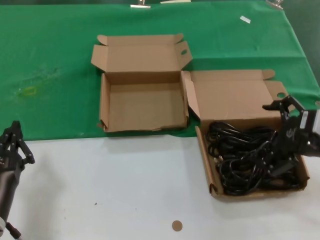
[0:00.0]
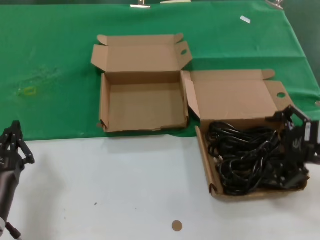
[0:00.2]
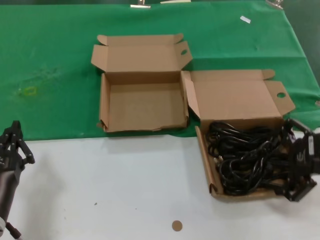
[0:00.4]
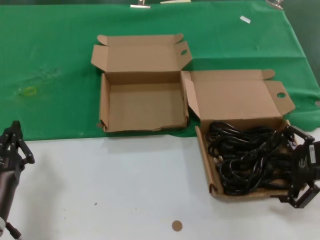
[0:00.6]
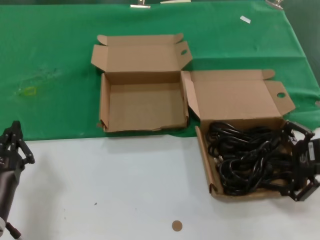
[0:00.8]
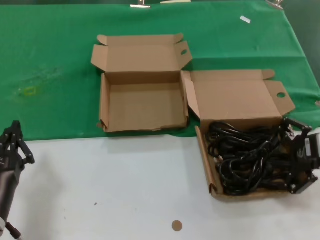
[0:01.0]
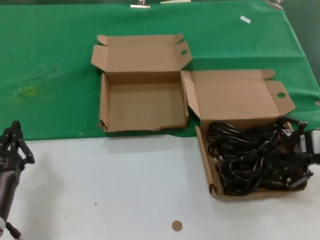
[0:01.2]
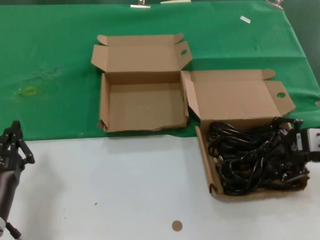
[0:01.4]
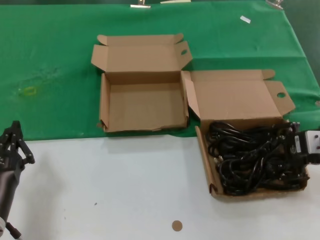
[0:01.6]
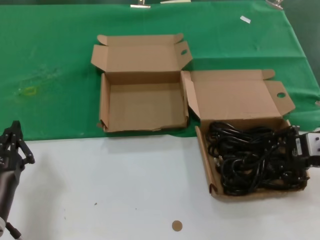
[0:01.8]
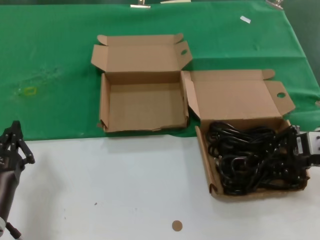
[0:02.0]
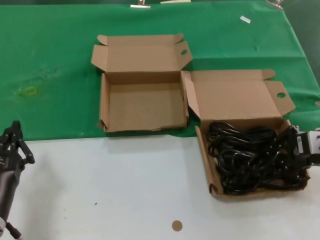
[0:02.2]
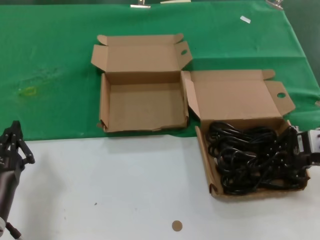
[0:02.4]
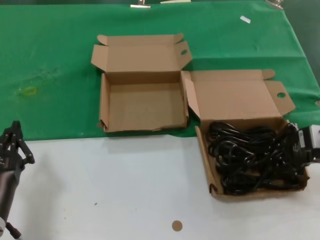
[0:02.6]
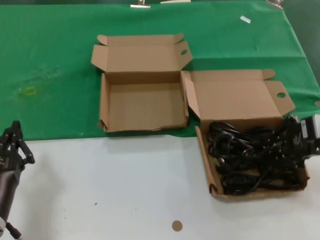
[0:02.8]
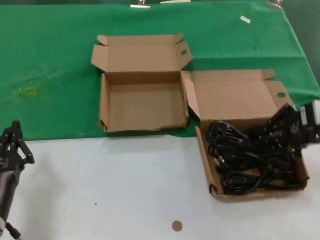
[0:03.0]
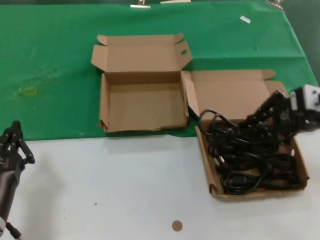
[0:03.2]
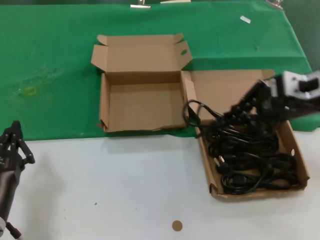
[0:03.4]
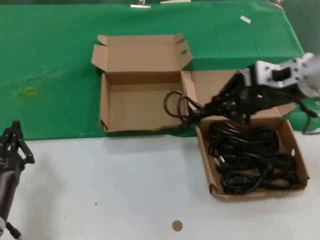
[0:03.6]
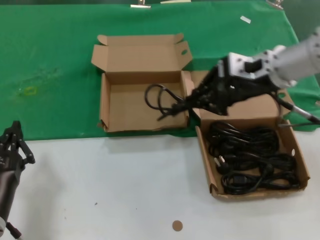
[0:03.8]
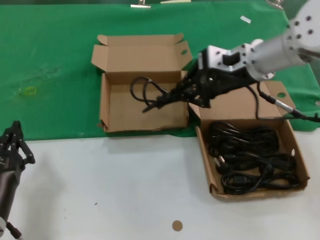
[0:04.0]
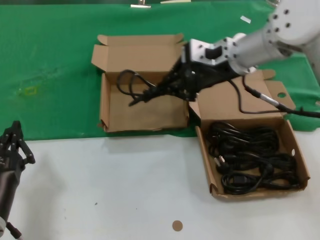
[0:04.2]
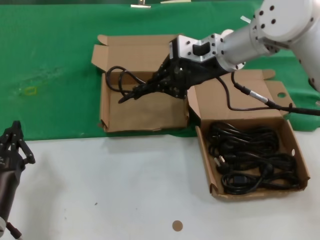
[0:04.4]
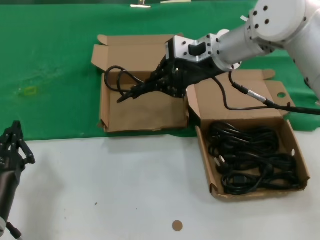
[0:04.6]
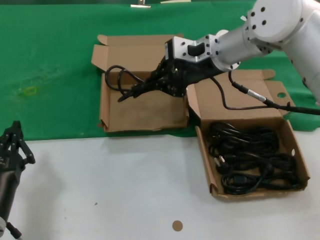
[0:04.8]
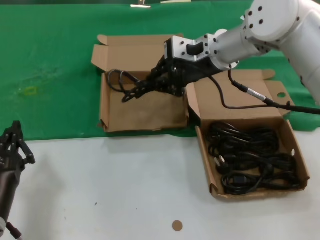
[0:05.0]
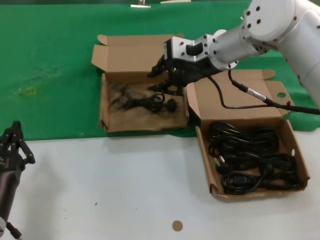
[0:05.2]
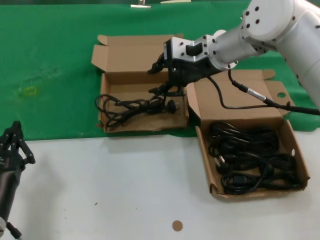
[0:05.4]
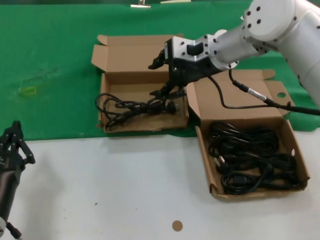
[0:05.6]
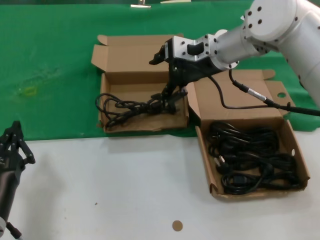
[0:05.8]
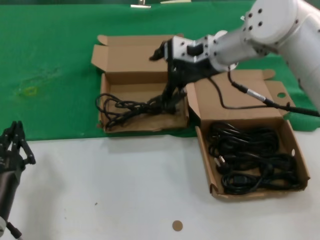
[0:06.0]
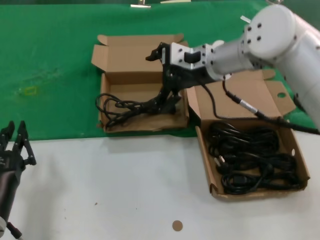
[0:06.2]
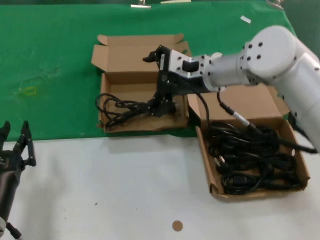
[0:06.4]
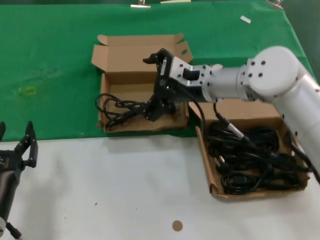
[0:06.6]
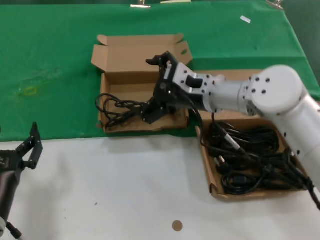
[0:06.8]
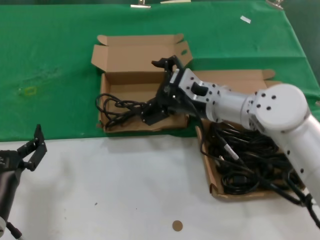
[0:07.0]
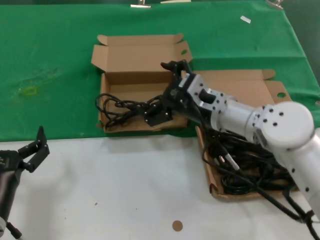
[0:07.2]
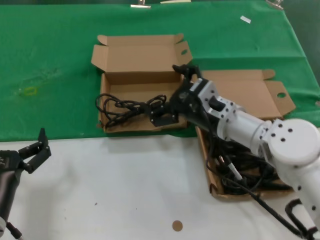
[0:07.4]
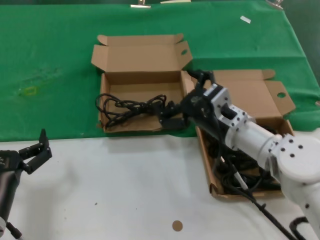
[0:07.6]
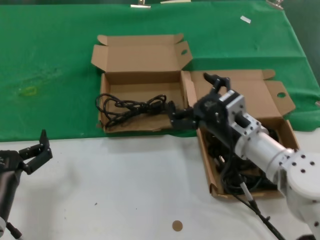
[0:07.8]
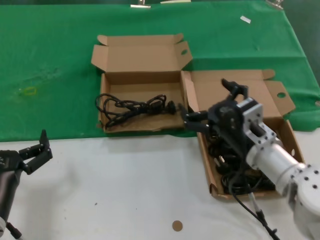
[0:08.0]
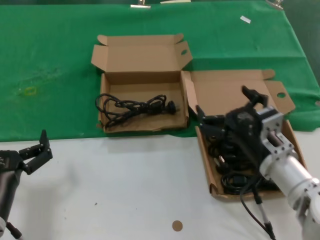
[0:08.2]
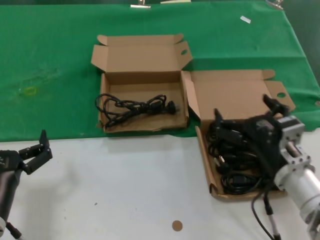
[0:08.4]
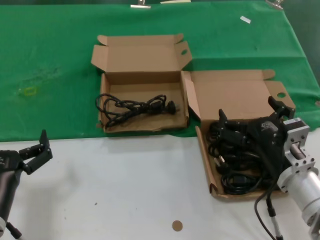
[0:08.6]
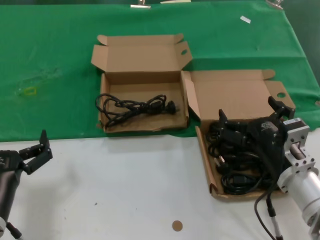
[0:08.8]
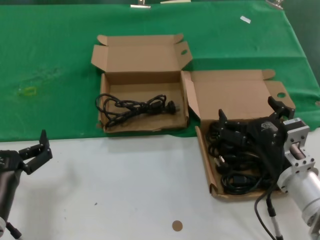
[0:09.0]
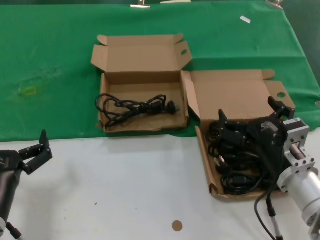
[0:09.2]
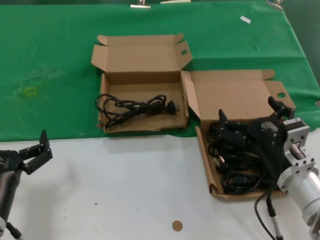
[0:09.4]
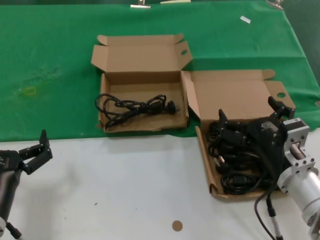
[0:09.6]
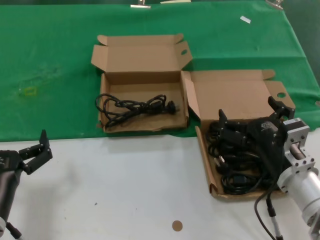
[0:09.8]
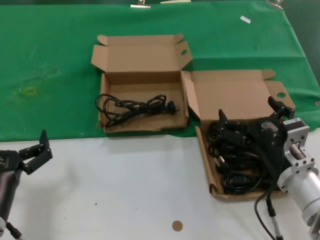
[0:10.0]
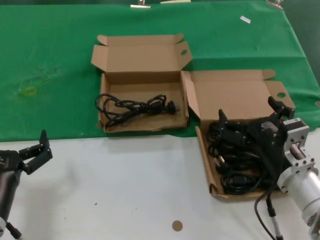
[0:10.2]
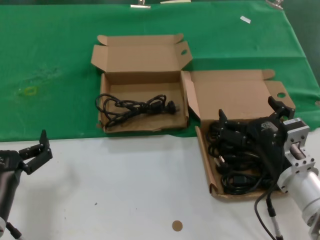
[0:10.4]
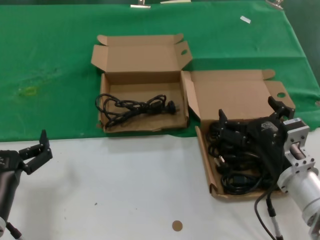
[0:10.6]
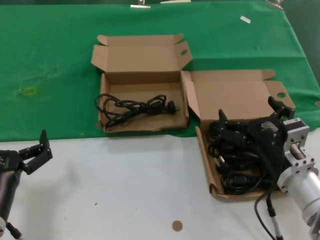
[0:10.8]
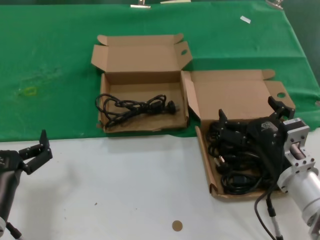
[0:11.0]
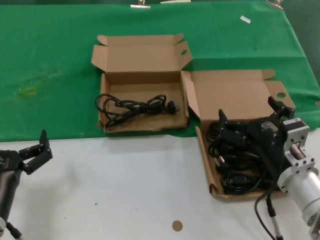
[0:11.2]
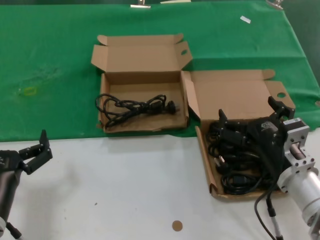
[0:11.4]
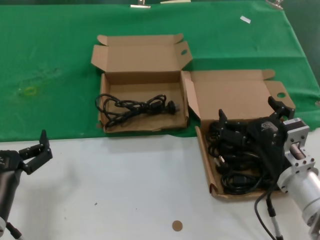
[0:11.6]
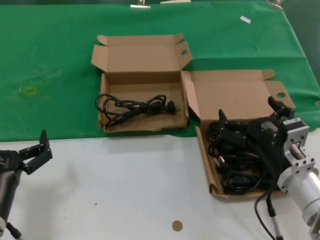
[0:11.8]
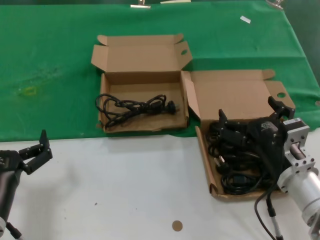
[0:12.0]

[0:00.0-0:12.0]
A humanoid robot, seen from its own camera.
Task of the whole recording: take the parts from the box containing them and put them into an empty box.
Step, 0:00.0 to 0:02.2: Grasp the data cable.
Step, 0:02.4 to 0:05.2: Place the data cable in the another box.
0:01.6 to 0:03.0: The right hand moves upward, roughly 5 cm.
0:03.0 to 0:04.4: The right hand moves to the left and forward, approximately 25 cm.
0:04.4 to 0:06.0: The hands move only a little.
0:06.0 to 0:07.6: The right hand shifts about 20 cm downward and backward.
0:07.6 to 0:09.0: The right hand travels backward and to the right by about 10 cm.
0:09.0 to 0:12.0: Both hands stay put.

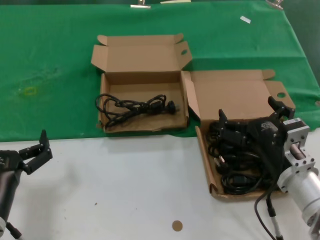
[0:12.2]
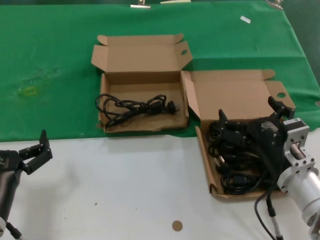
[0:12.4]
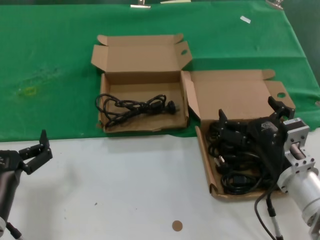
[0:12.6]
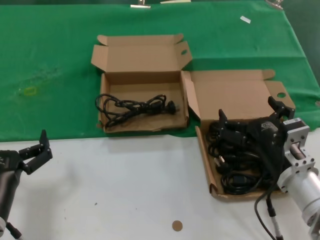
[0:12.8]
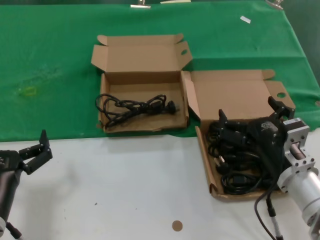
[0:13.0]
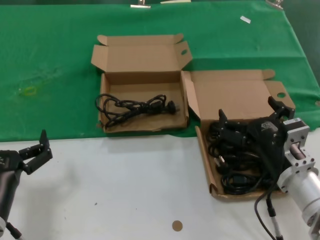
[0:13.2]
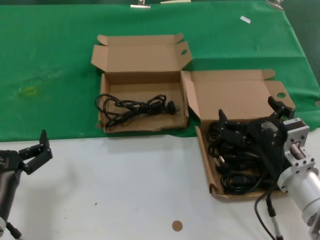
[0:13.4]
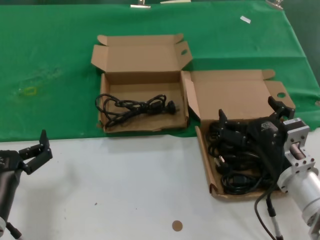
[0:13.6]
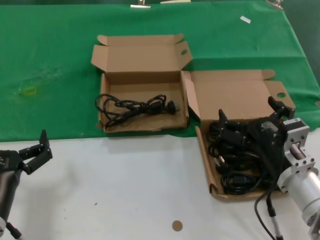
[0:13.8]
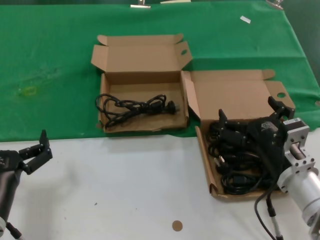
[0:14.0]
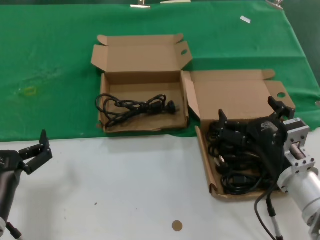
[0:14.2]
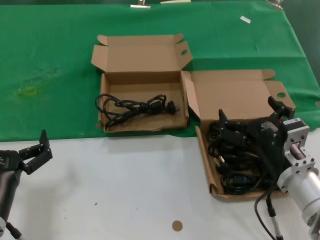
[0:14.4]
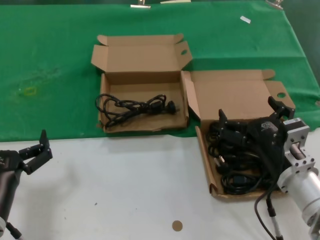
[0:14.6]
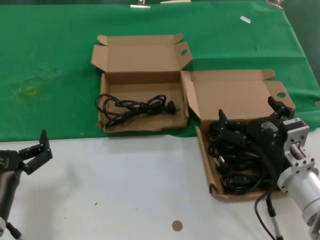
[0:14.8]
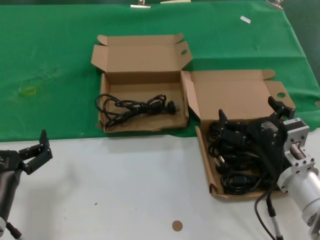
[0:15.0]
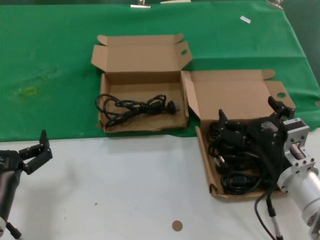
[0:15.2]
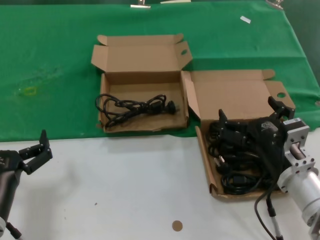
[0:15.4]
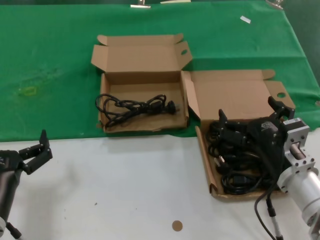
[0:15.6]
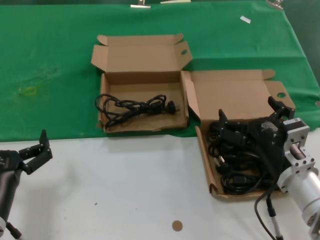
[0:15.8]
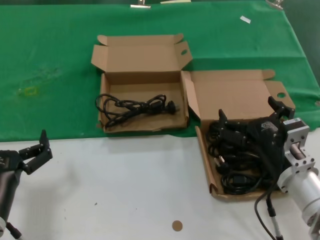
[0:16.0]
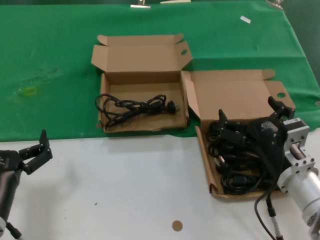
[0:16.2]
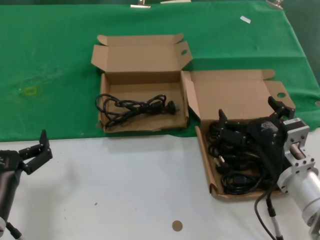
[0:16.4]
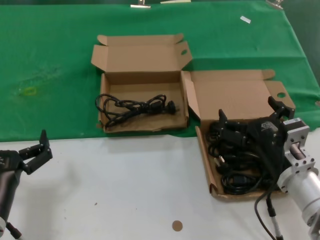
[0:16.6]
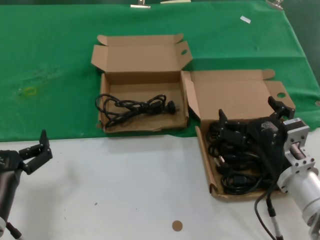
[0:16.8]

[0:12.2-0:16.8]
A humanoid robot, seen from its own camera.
Task of the whole recording: take the parts from the box containing them and put them into an empty box.
0:12.2 to 0:16.8: Both hands stay put.
